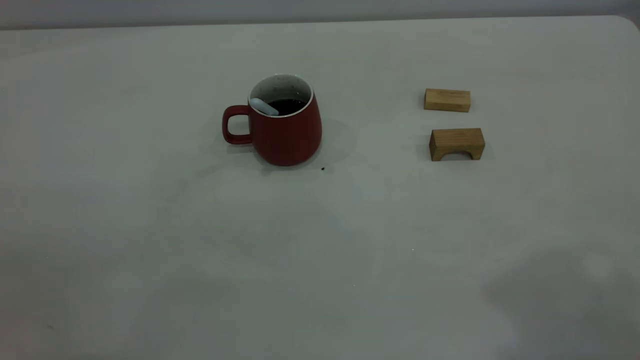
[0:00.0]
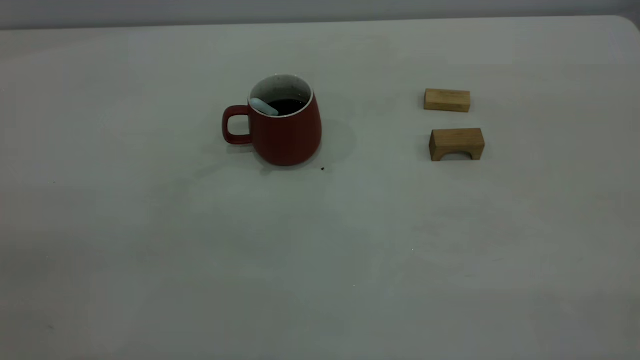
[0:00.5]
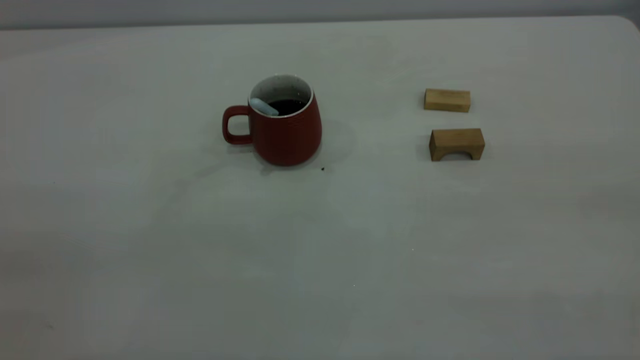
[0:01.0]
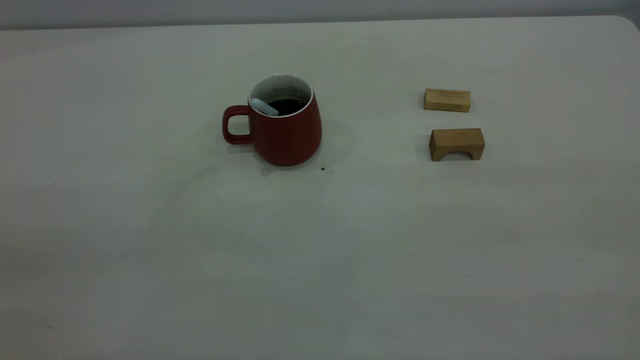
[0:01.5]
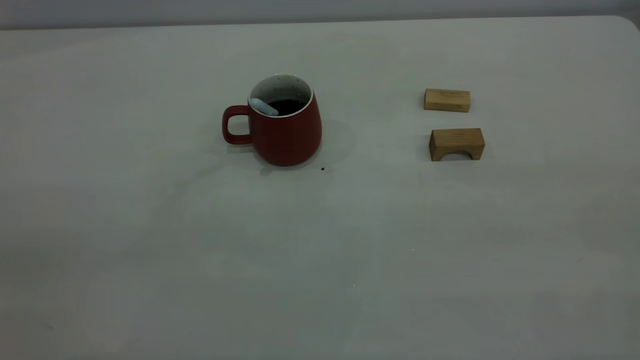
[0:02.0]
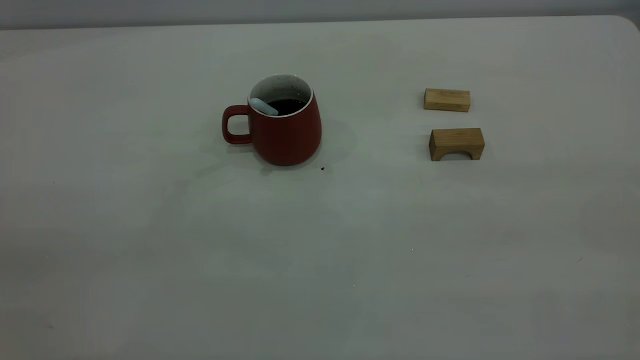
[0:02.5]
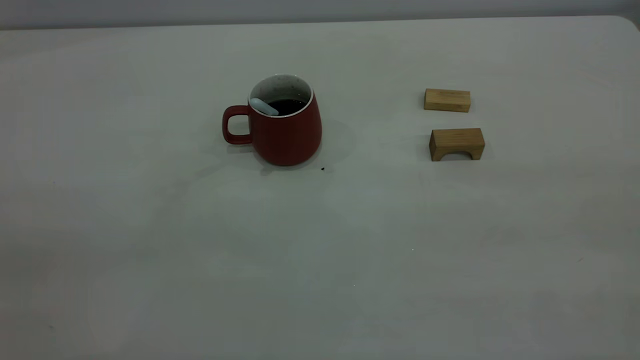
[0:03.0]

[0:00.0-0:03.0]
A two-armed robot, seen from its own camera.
1.5 to 3.0 s: The two grippers keep their place.

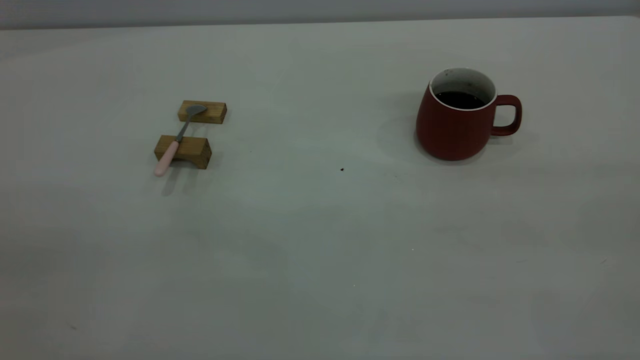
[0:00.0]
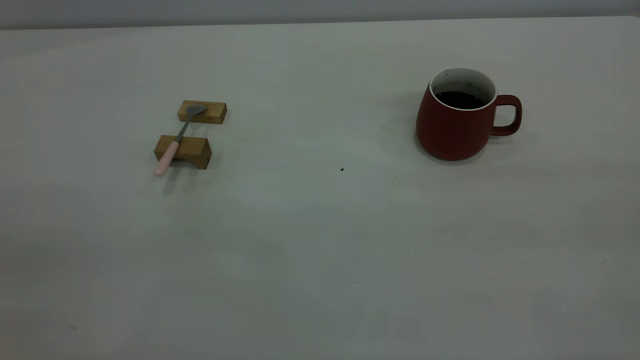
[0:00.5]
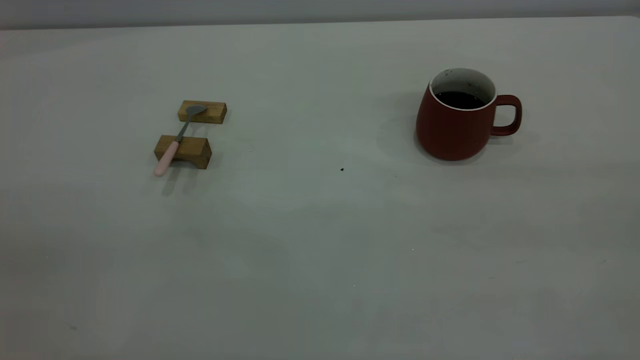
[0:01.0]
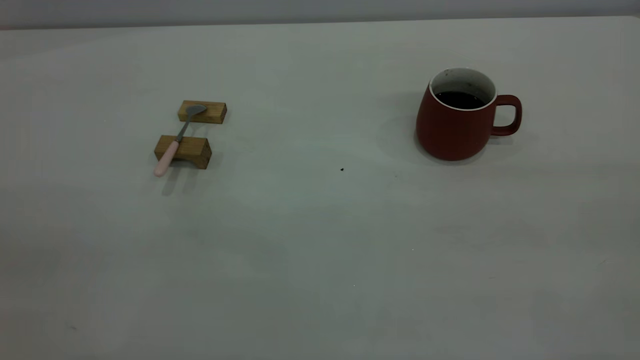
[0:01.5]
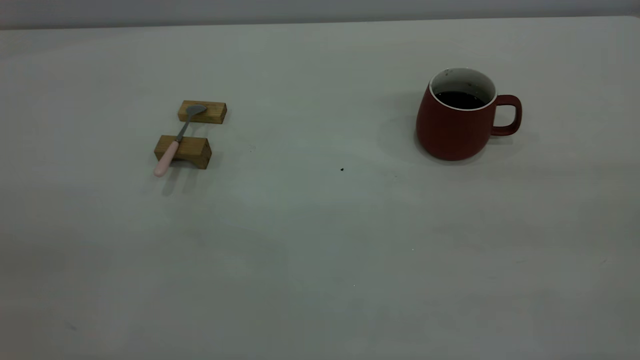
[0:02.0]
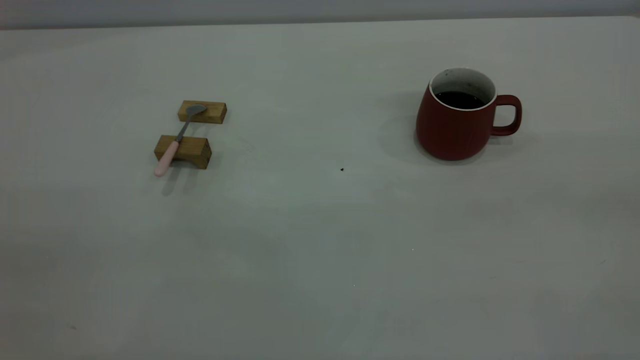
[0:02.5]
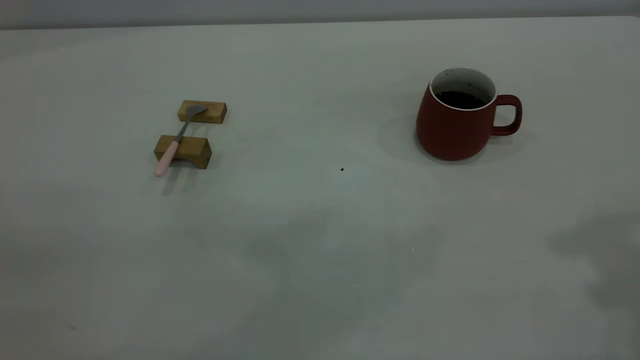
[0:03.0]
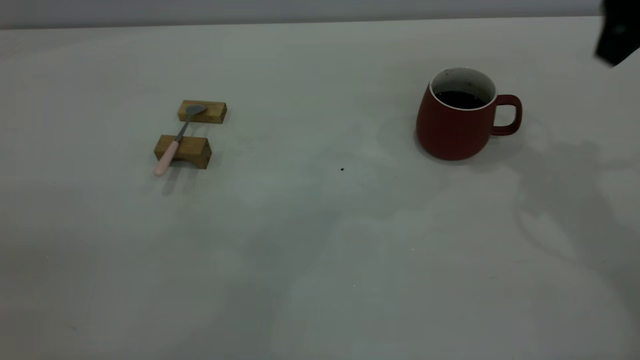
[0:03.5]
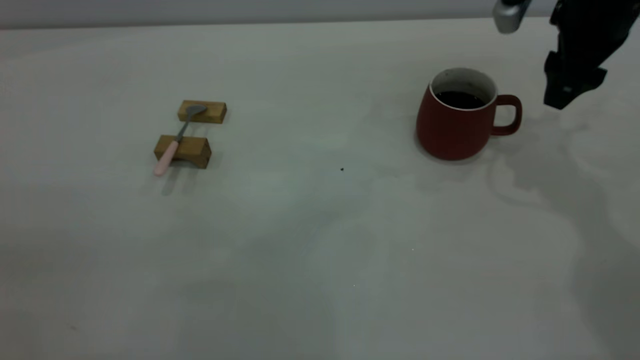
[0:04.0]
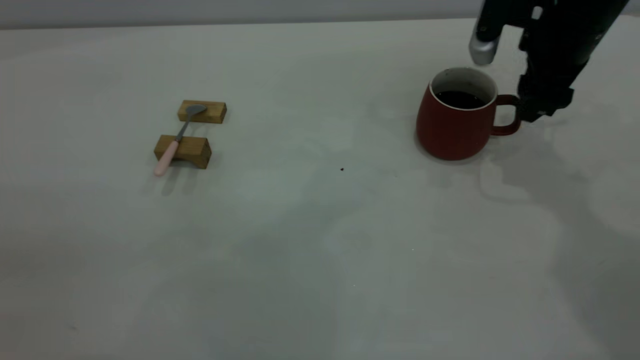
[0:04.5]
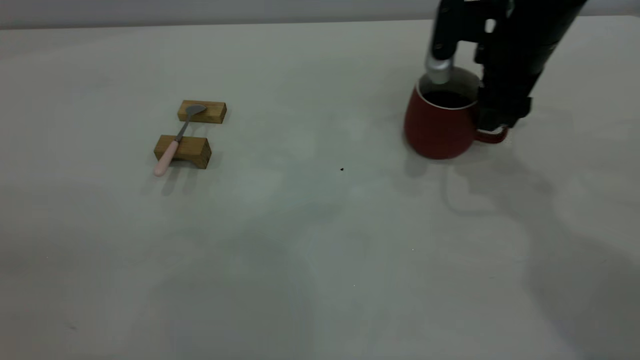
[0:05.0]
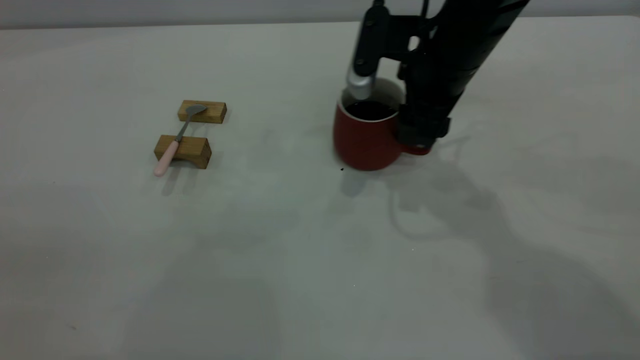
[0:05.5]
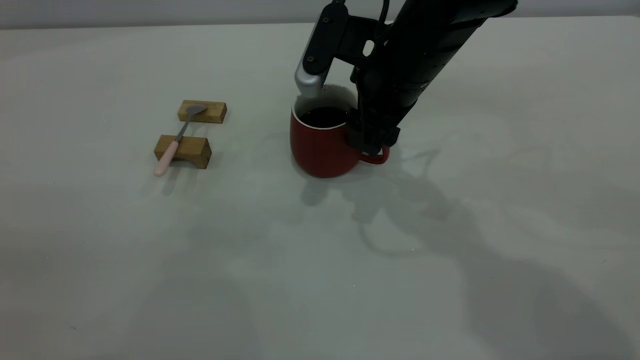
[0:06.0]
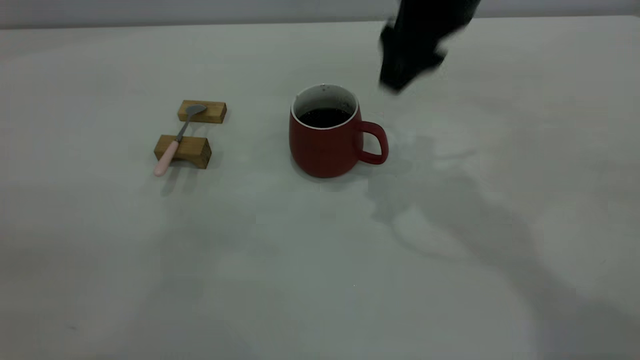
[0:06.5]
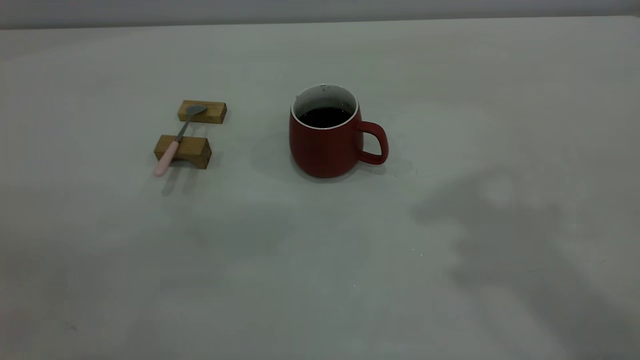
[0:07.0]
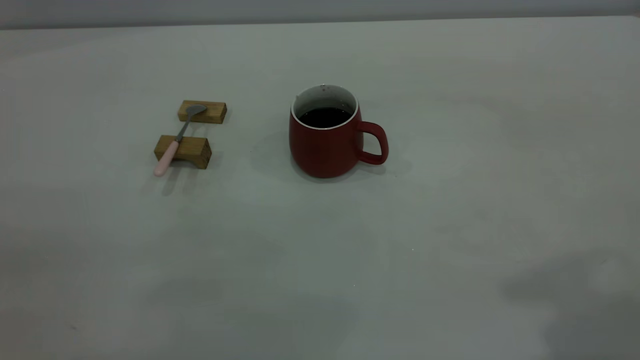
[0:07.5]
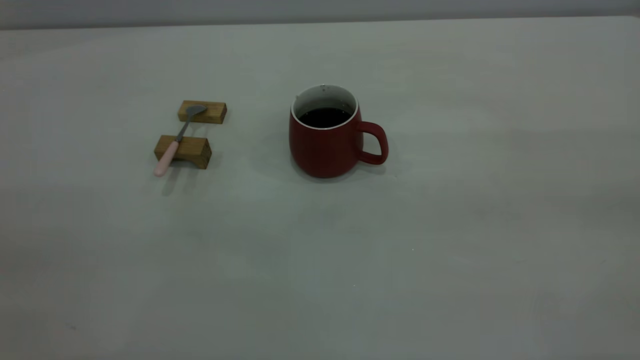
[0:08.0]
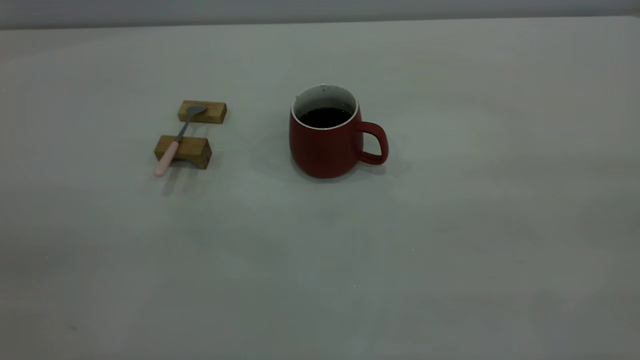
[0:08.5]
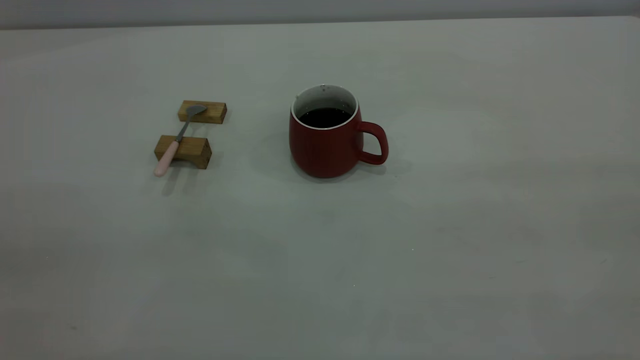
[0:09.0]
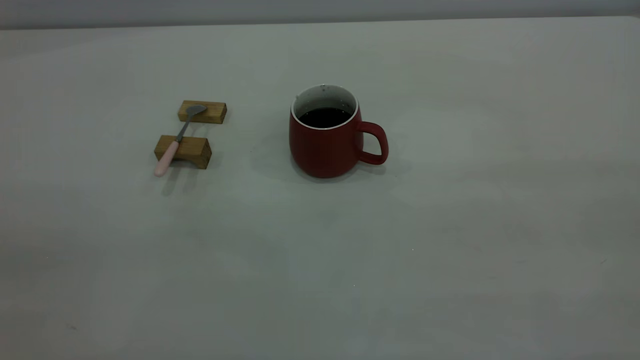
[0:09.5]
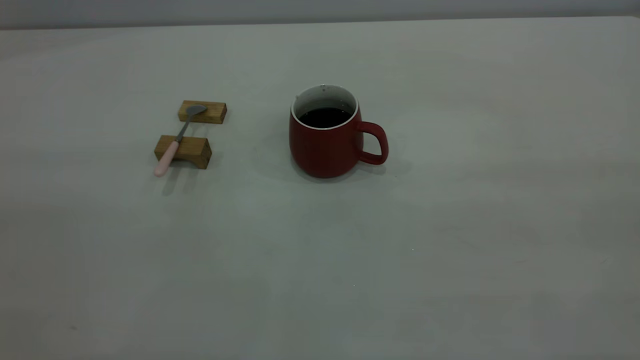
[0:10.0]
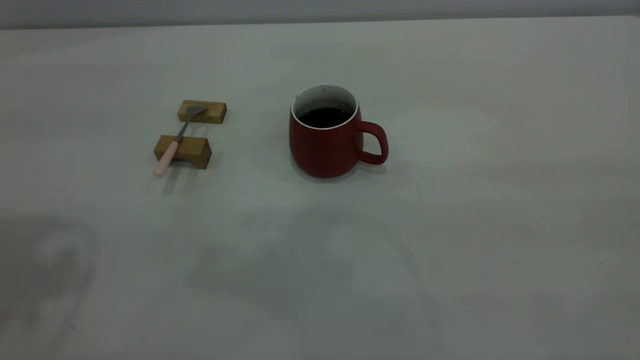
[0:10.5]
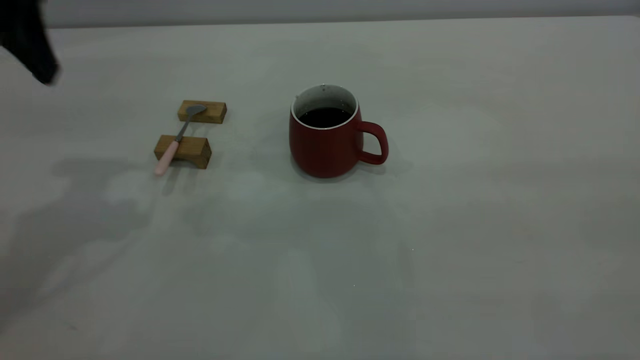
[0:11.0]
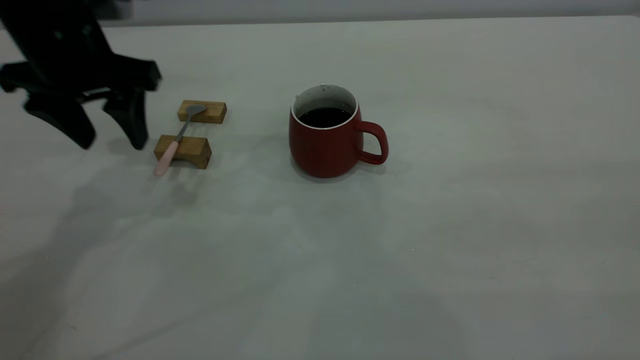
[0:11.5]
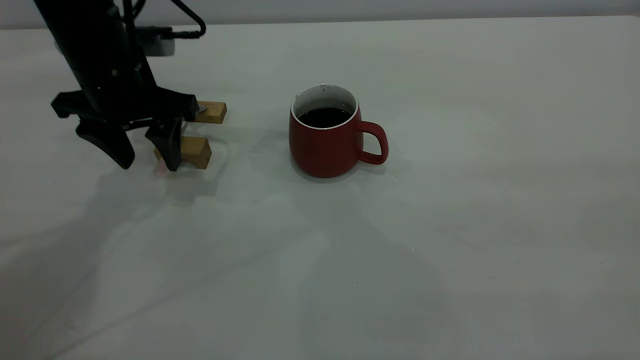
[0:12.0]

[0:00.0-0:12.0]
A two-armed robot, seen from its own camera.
Step, 0.0 to 6.0 s: Move the cup with coffee to the center of view.
0.0 to 2.0 s: Both grippers stay about where they are.
2.0 to 4.0 s: The right gripper moves forward and downward, some 40 cm.
4.0 to 6.0 s: The right gripper heads to the left, covering some 20 cm.
6.0 to 8.0 s: The right gripper heads backward, to the right and upward, covering about 40 cm.
10.0 to 12.0 s: The left gripper shifts roughly 40 cm forward and downward.

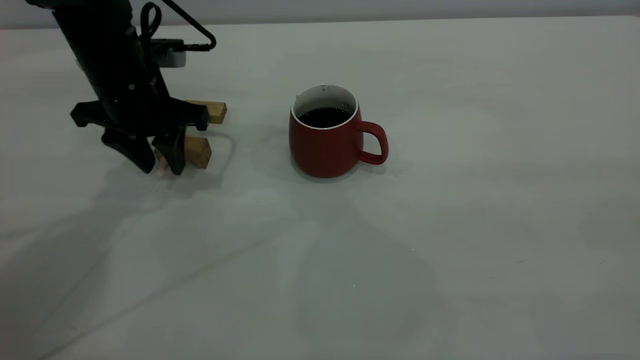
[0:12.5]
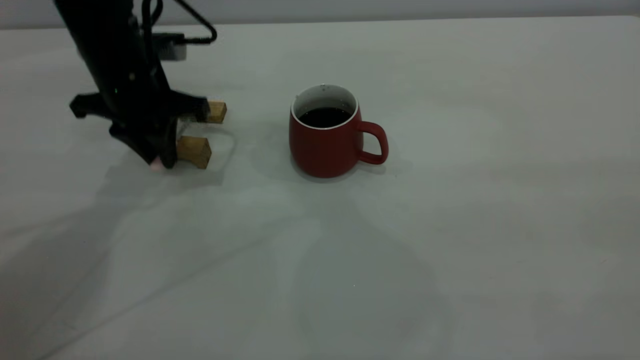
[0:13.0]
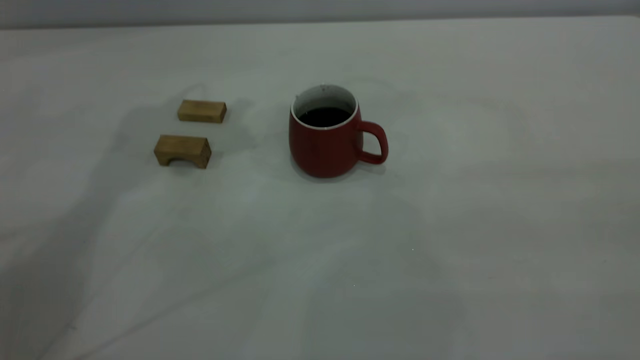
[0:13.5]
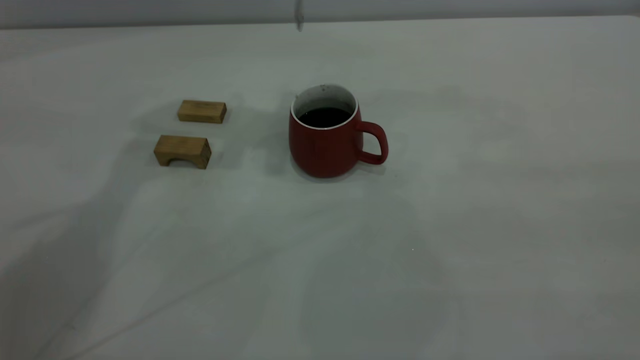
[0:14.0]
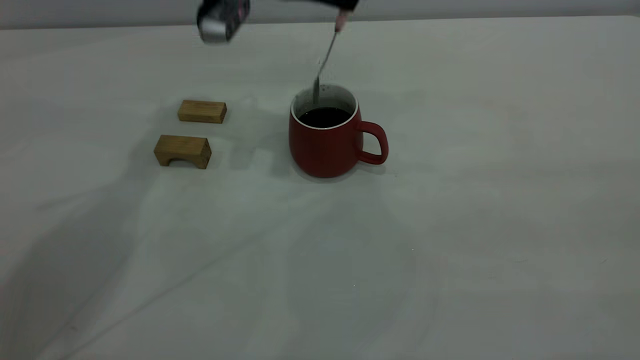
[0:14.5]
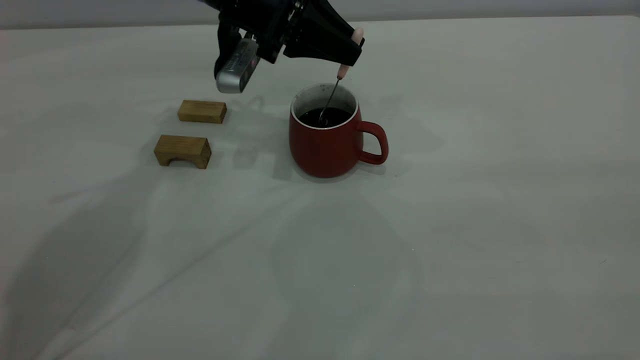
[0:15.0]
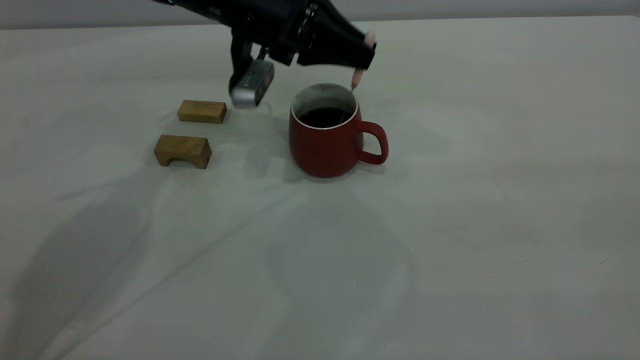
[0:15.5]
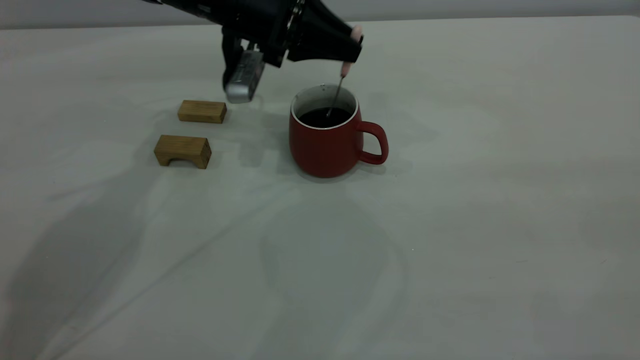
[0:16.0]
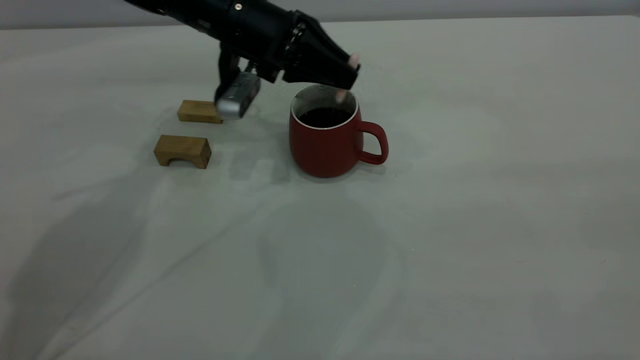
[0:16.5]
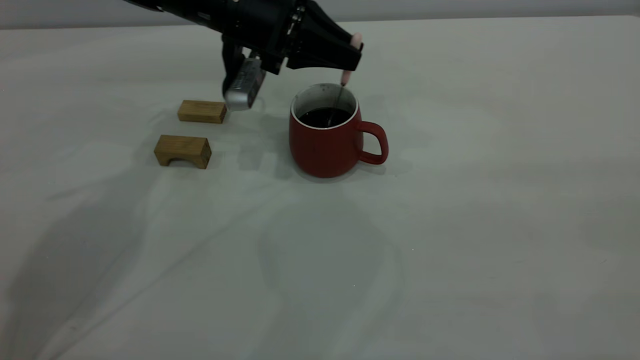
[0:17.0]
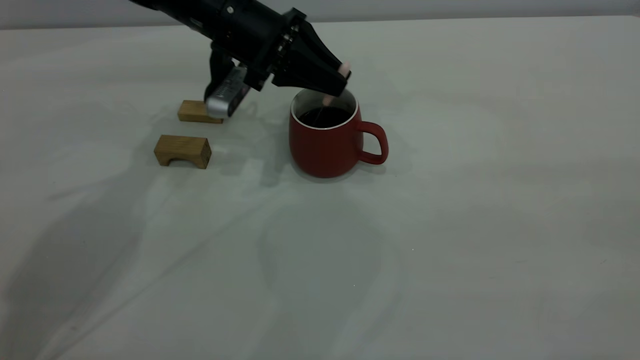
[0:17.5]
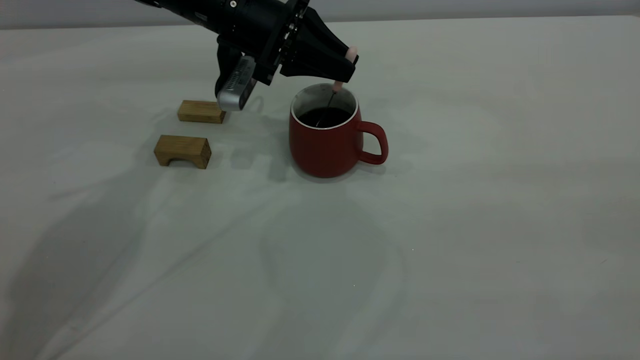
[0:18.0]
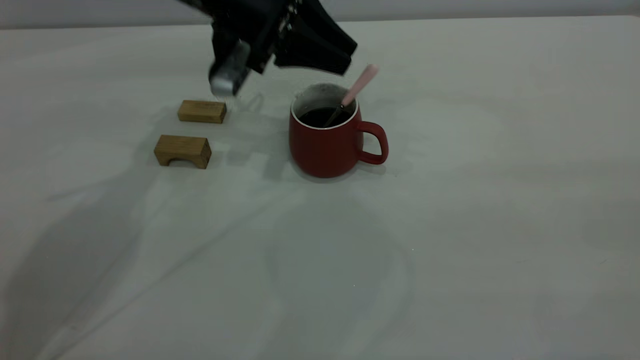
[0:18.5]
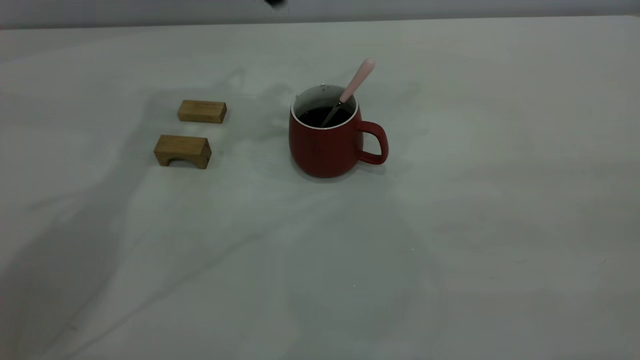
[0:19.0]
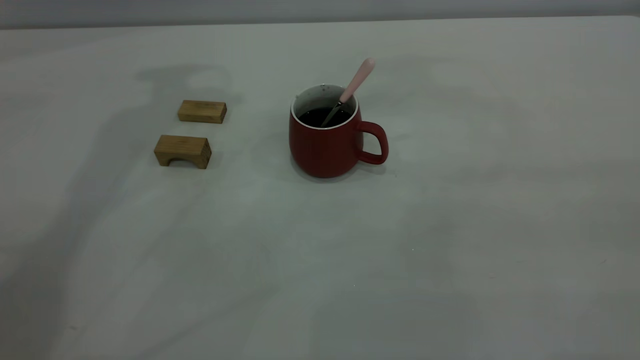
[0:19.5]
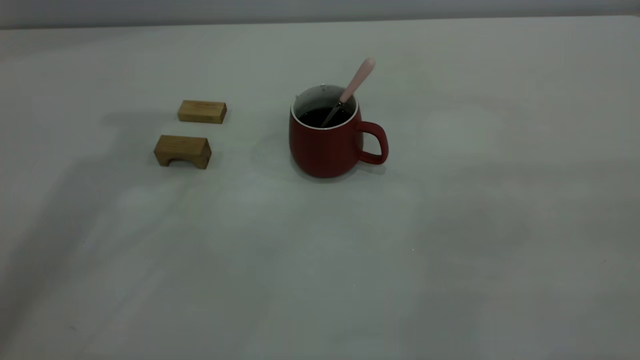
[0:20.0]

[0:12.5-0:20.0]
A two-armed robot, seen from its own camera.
Step, 13.5 to 18.5 s: Stir the coffee in the cup.
12.5 to 14.5 s: The left gripper is displaced to the right, upward and forward by approximately 15 cm, and closes up.
14.5 to 16.5 s: The left gripper moves downward, roughly 10 cm.
16.5 to 18.0 s: The grippers make only small movements.
18.0 to 20.0 s: The left gripper shifts some 30 cm upward.
